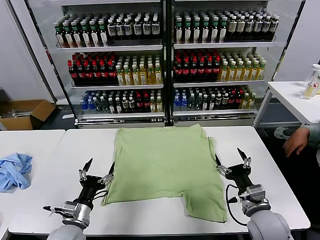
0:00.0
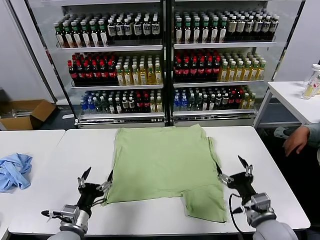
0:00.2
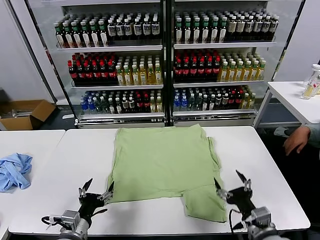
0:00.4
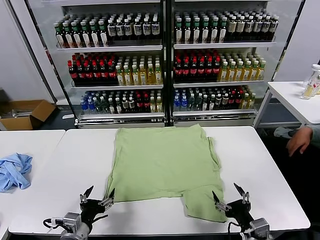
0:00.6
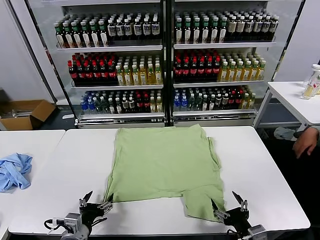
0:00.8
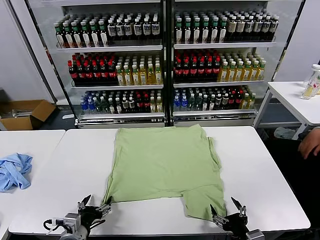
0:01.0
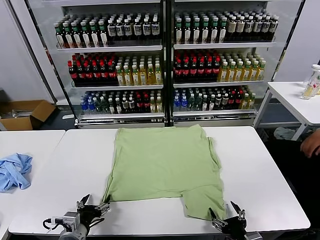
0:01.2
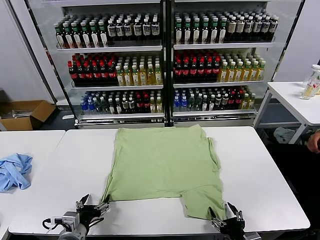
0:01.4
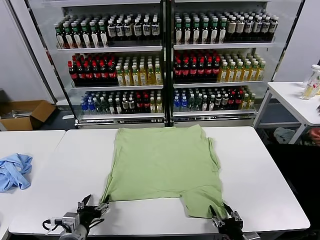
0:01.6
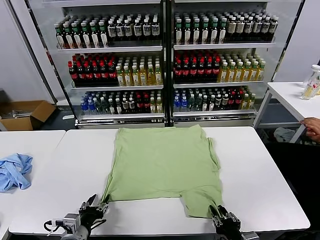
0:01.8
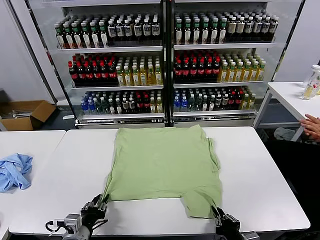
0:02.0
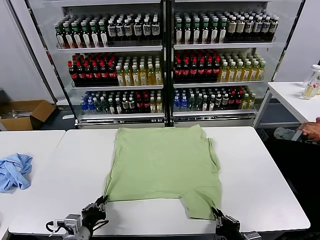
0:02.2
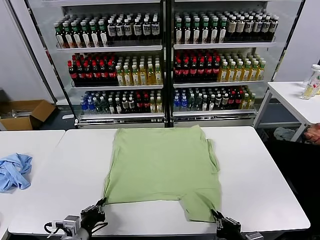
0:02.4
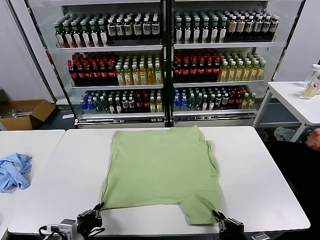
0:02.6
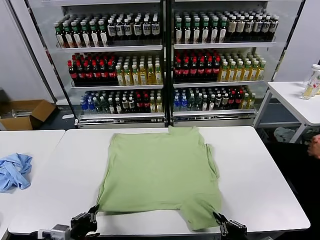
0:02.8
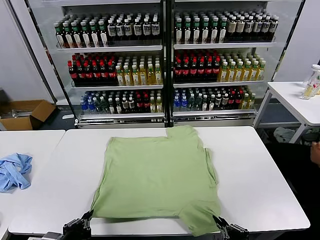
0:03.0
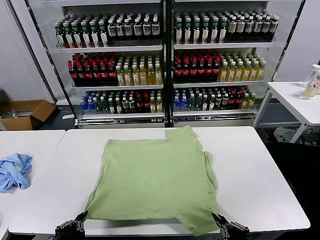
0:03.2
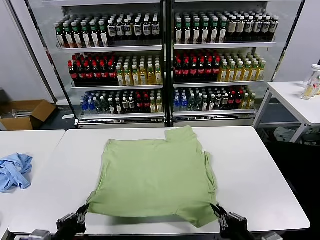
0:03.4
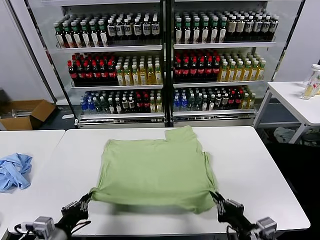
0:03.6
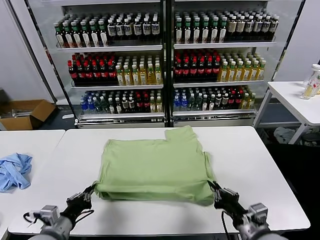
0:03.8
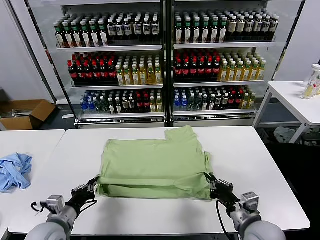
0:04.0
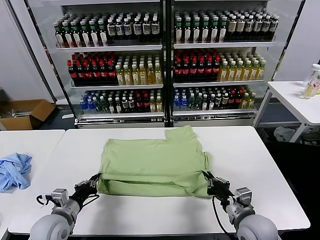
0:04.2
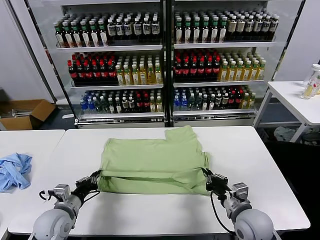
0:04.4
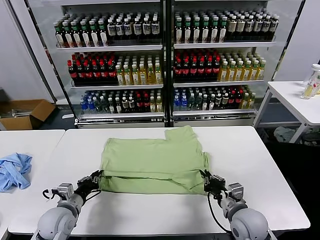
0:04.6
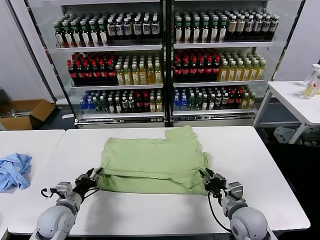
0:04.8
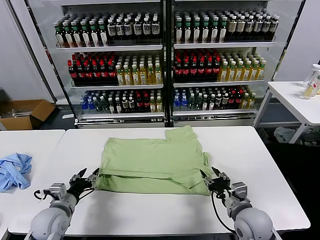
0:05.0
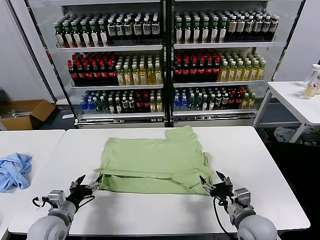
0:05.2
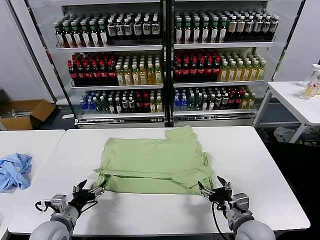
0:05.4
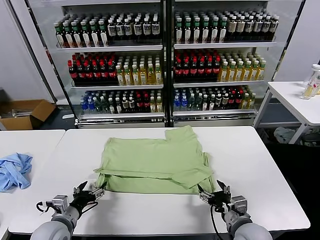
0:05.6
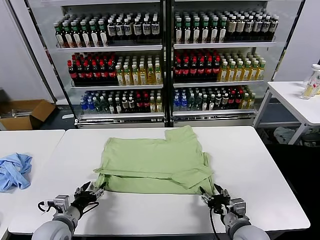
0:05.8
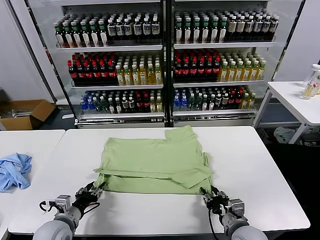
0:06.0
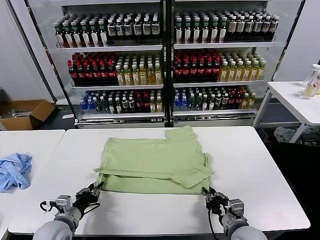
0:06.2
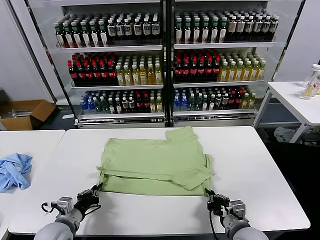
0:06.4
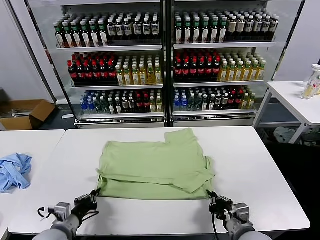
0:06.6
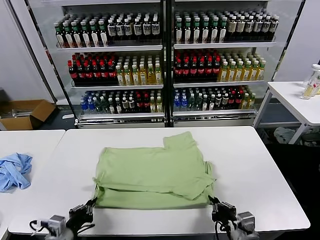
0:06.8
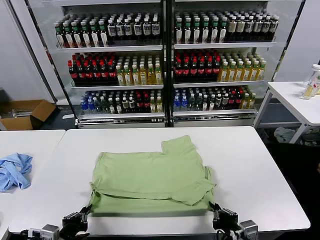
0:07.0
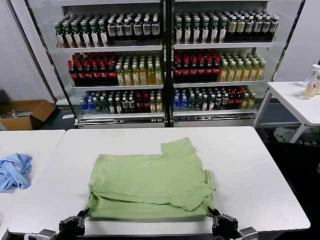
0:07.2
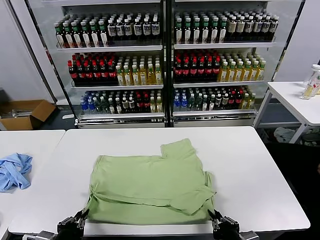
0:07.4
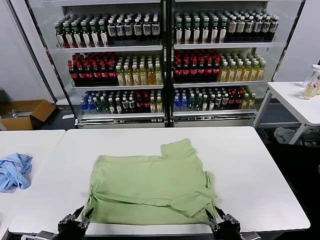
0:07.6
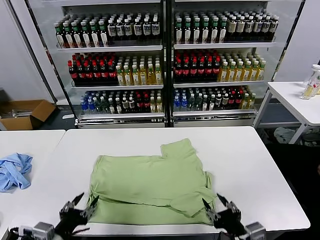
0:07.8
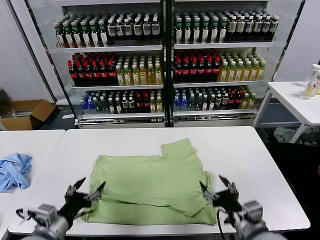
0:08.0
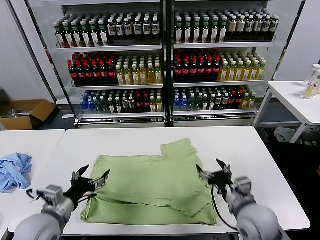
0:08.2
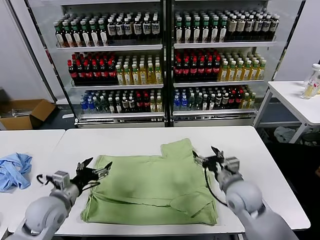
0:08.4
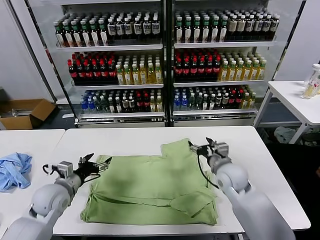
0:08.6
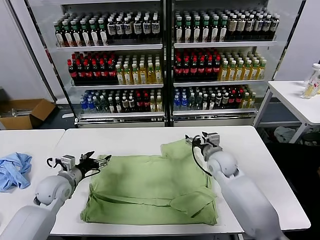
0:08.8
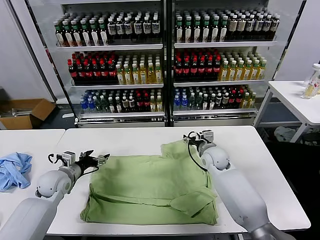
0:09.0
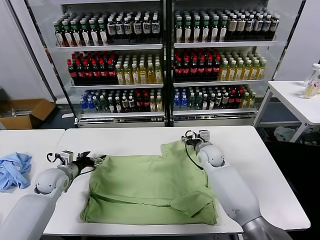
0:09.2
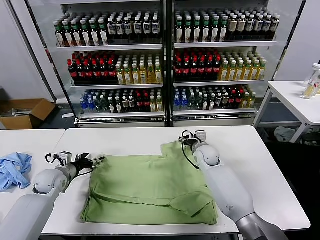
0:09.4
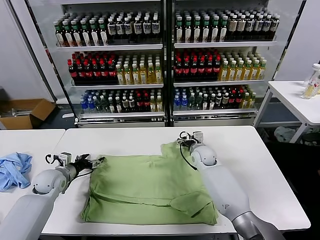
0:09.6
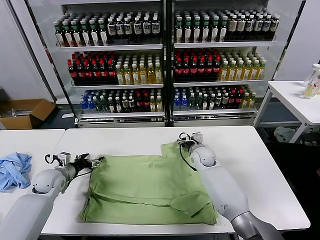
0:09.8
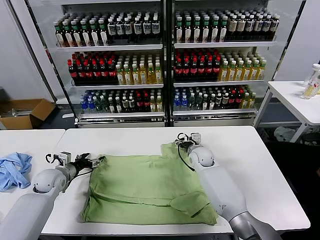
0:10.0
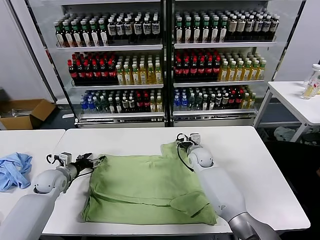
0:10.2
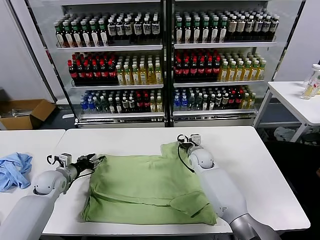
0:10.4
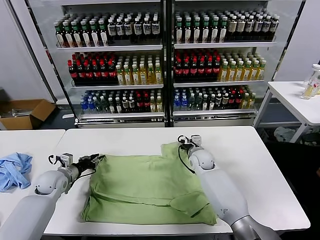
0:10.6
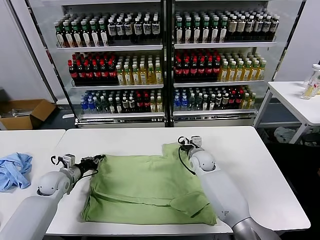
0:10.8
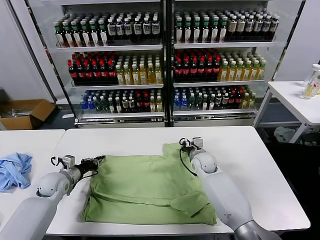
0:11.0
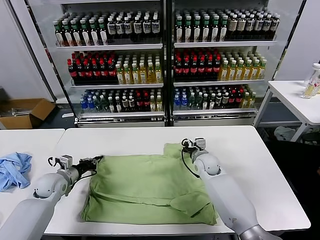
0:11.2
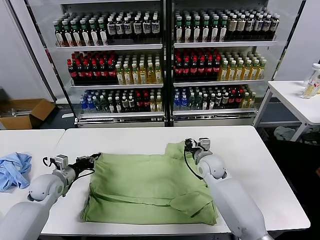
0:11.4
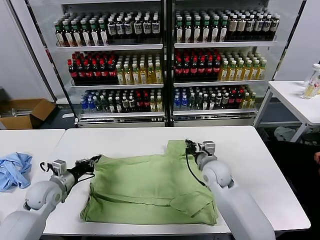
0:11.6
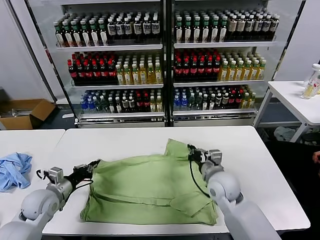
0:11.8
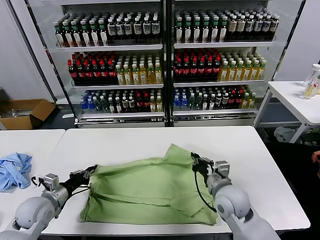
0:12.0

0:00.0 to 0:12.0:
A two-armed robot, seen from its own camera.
Task of the whole recording: fold and organize the clothes.
Step, 0:00.0 to 0:02.6: use both grippers simultaneously to clamp the lower edge of the clothing fabric.
Step, 0:02.8 to 0:05.0: use both grippers to drag the lower edge of the fabric forward and fold it over the upper edge.
Step, 0:05.2 to 0:07.6: Drag the clothes downward with both gripper.
Step, 0:07.8 to 0:10.8: use both grippers simultaneously to clamp the upper edge of the clothing fabric.
0:01.6 to 0:03.0: The left gripper heads backward and upward, covering approximately 10 cm, and closes its fingers. The right gripper travels upward by about 10 cm, and closes.
0:03.0 to 0:04.4: The two grippers go roughly 15 cm forward.
0:04.4 to 0:06.0: The left gripper opens; the right gripper opens and closes again.
0:06.0 to 0:07.6: The grippers both shift backward and upward by approximately 15 cm. The right gripper closes, then reopens; the left gripper closes, then opens again.
0:07.6 to 0:09.0: Both grippers move forward, some 35 cm. The left gripper opens. Meanwhile the right gripper opens.
0:09.0 to 0:10.4: The right gripper shifts by approximately 5 cm, and closes. The left gripper shifts by approximately 5 cm.
0:10.4 to 0:12.0: The left gripper shifts about 10 cm backward, and closes its fingers, while the right gripper travels backward by some 20 cm, and closes.

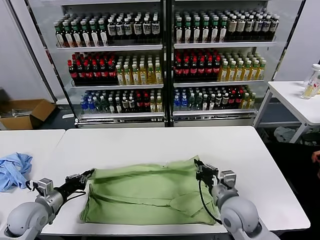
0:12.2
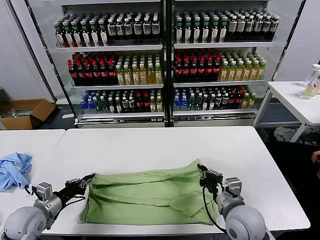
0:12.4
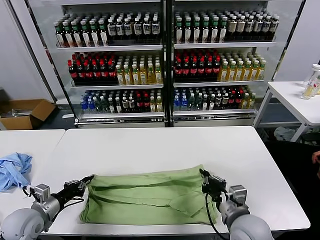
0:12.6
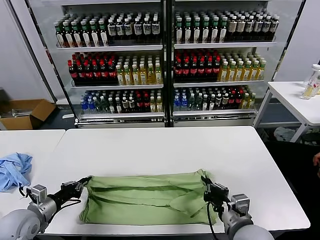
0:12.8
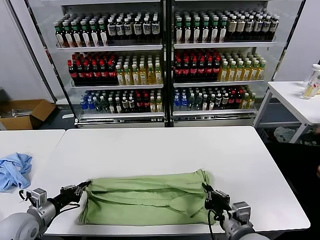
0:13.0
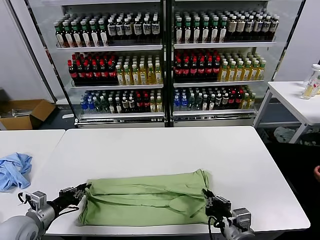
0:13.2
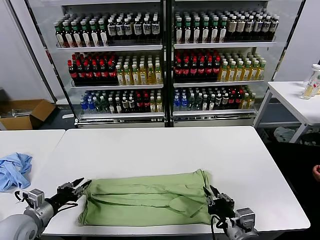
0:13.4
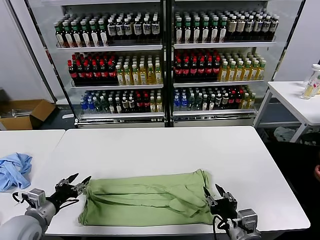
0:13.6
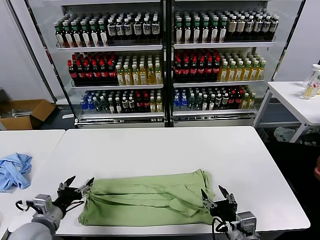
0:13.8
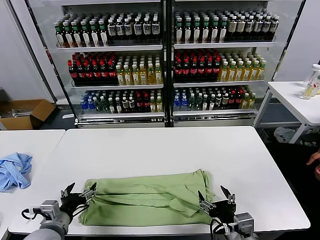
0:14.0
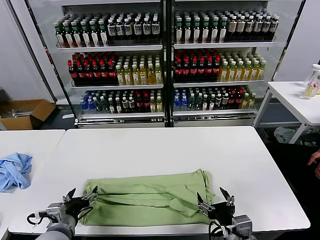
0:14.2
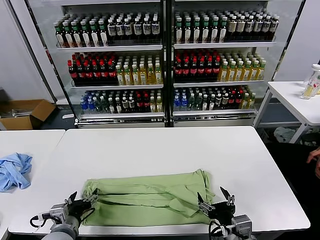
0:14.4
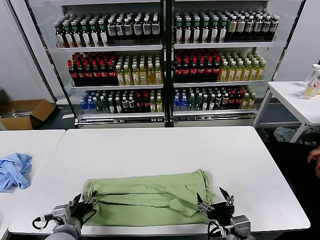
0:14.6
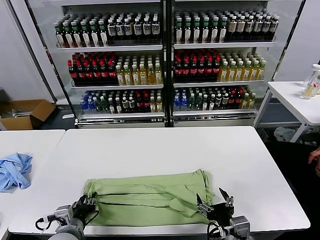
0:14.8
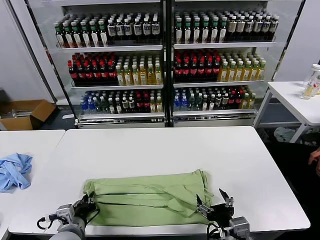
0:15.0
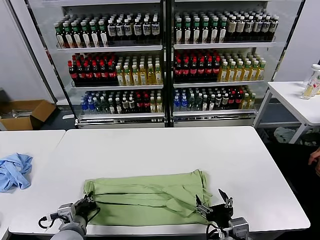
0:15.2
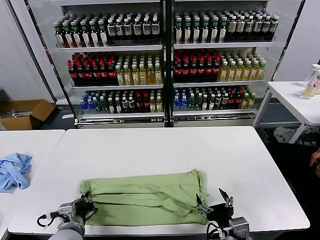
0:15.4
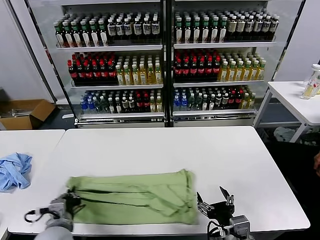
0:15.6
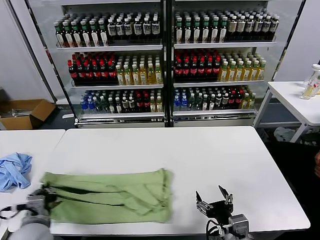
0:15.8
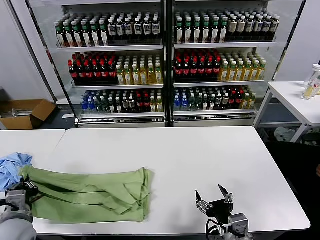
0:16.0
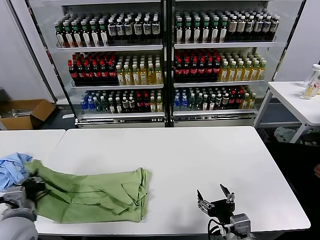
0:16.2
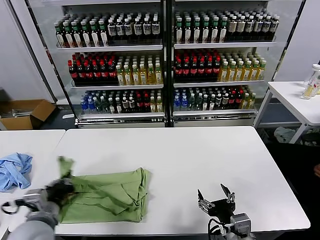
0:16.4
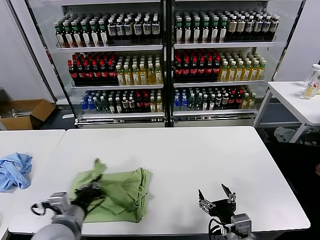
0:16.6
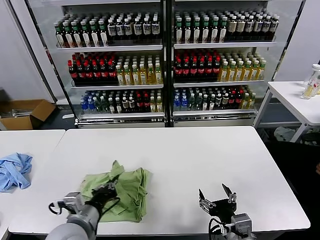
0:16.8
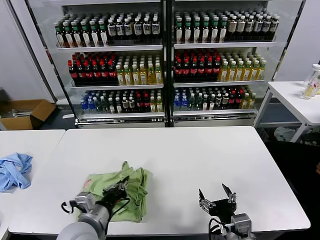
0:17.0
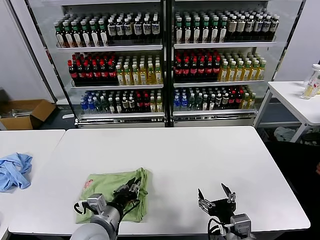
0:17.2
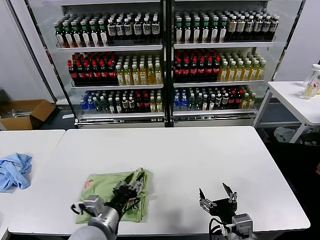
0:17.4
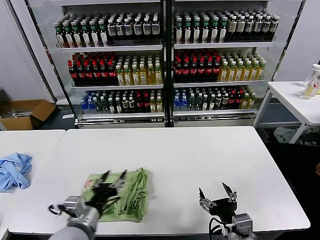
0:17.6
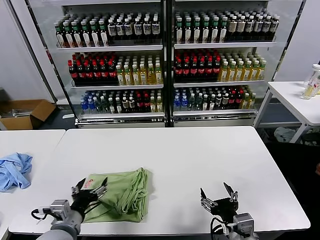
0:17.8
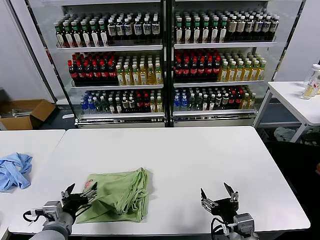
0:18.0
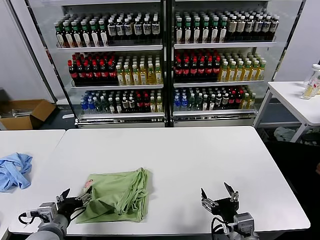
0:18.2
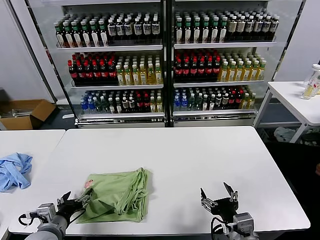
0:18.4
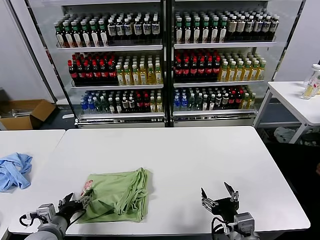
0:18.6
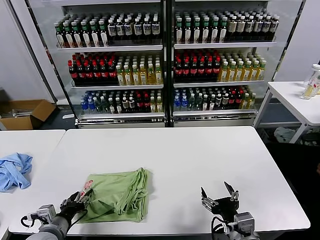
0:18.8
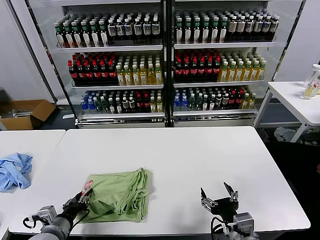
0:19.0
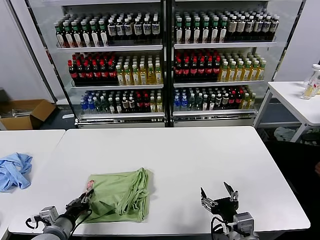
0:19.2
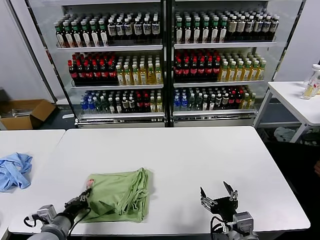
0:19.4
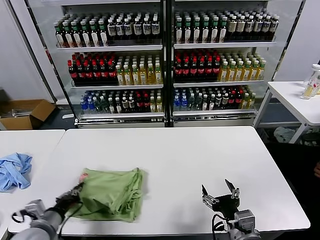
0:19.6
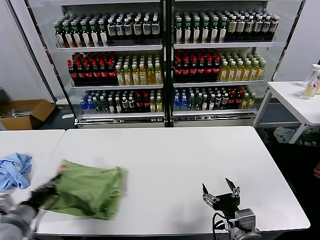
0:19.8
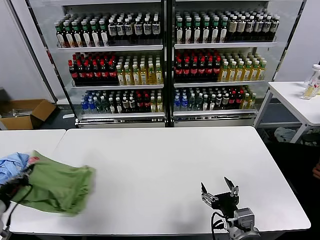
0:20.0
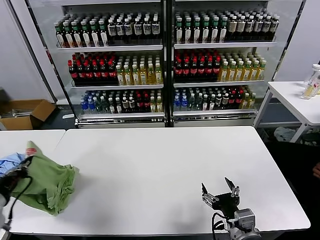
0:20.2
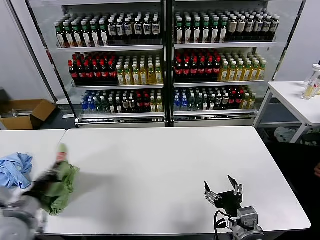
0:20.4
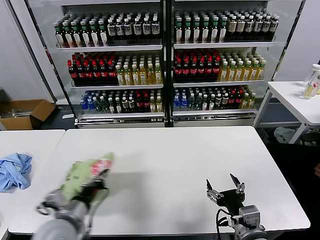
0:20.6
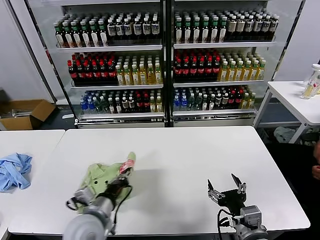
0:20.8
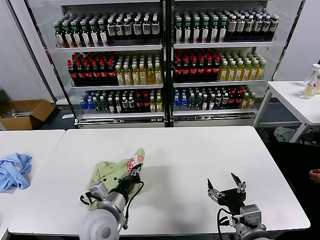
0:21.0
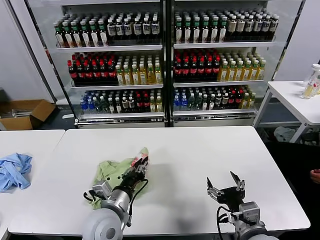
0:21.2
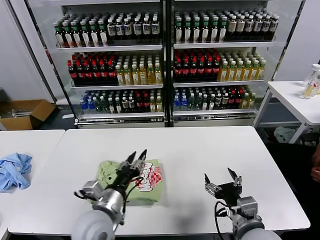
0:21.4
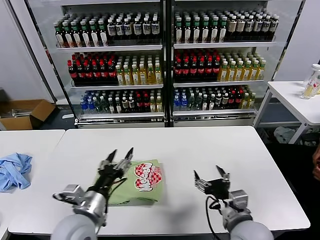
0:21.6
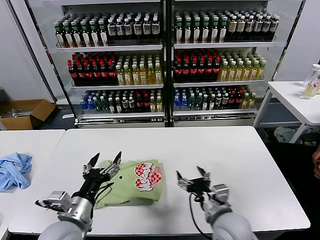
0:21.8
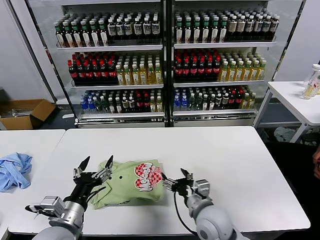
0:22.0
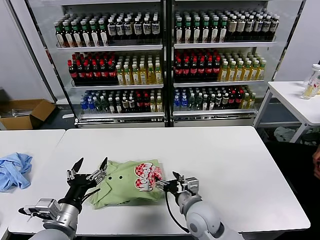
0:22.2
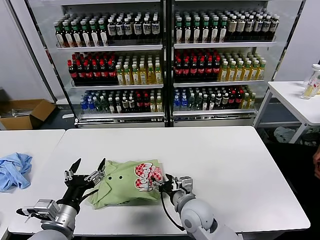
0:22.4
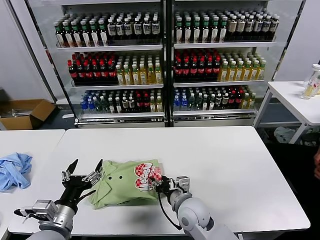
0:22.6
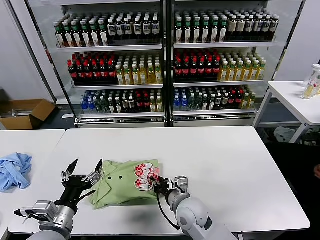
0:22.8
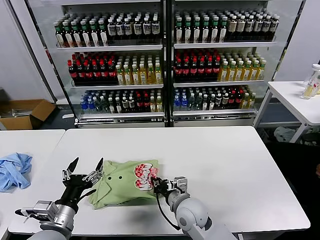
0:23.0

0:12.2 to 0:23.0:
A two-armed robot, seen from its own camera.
Task of the whole recording: fold and organize the clothes.
Step, 0:13.6 to 0:15.0: use the left gripper to clamp the left edge of the fabric.
Step, 0:15.2 to 0:17.2: use the left gripper to drag the left edge of the fabric to the left and folds it over the right edge.
Step, 0:17.6 to 0:21.4: Flip the folded clothes over with left gripper.
0:12.2 to 0:13.8: The right gripper heads backward, covering approximately 10 cm, and opens its fingers. Meanwhile the left gripper is displaced backward by approximately 5 cm, and opens up.
0:13.8 to 0:15.2: The left gripper travels to the right by some 10 cm, and closes its fingers.
0:15.2 to 0:16.8: The left gripper moves upward, about 10 cm, and travels to the left and back again, some 10 cm each way.
0:16.8 to 0:18.4: The left gripper moves to the left and downward, roughly 10 cm, and opens.
0:18.4 to 0:20.0: The left gripper heads to the left and upward, covering about 15 cm, and closes its fingers.
0:20.0 to 0:21.4: The left gripper travels to the right by some 30 cm, and opens its fingers.
0:21.4 to 0:23.0: The right gripper travels to the left, forward and downward by approximately 20 cm, and closes; the left gripper goes about 10 cm to the left and backward, and opens up.
